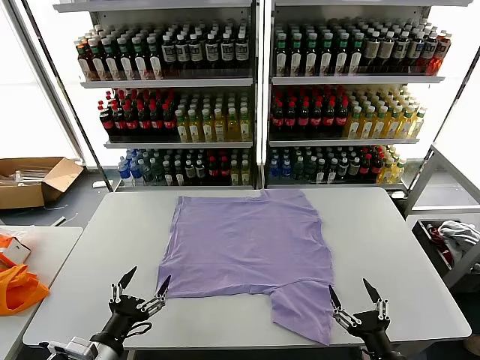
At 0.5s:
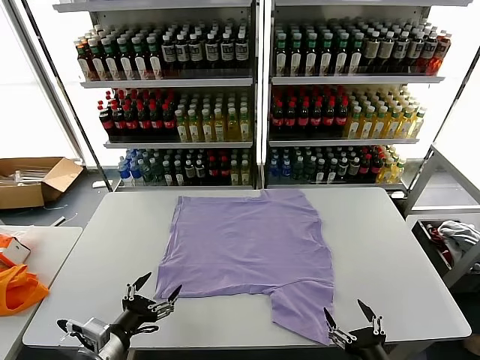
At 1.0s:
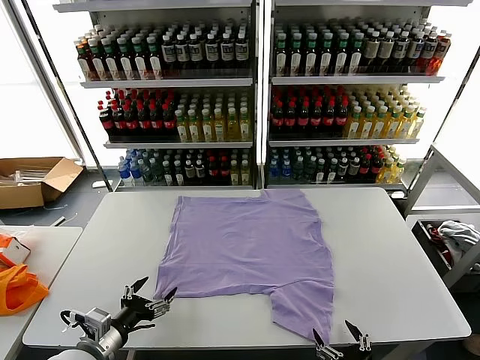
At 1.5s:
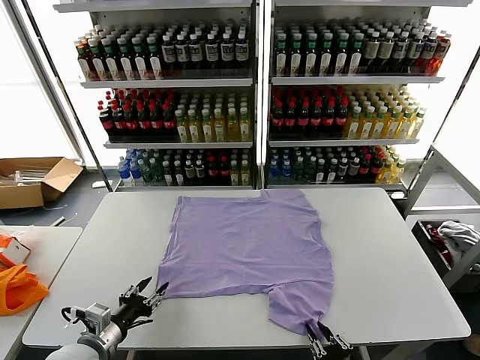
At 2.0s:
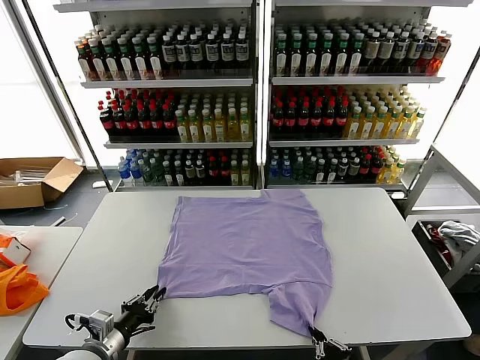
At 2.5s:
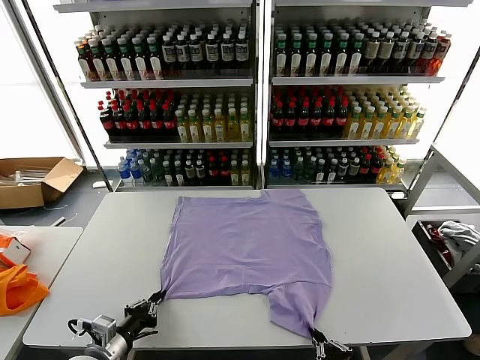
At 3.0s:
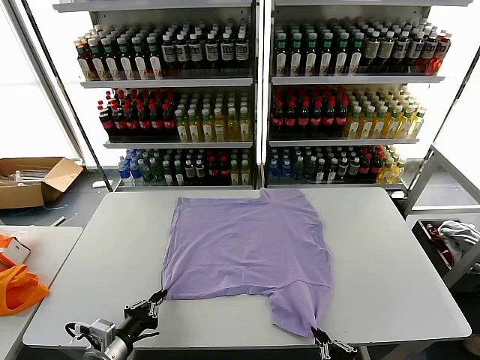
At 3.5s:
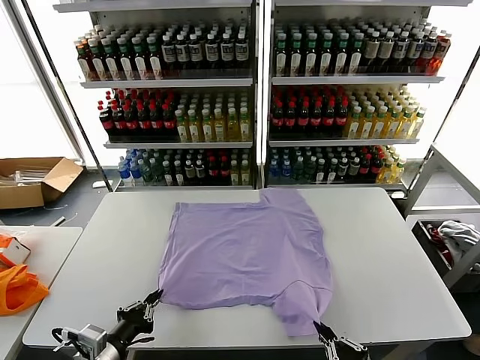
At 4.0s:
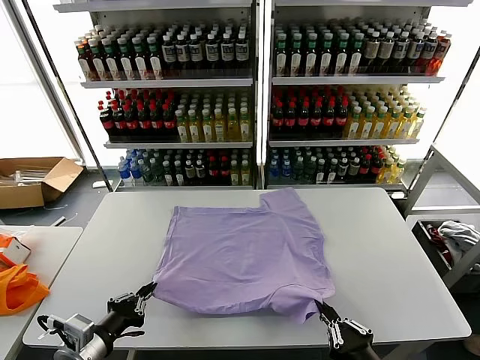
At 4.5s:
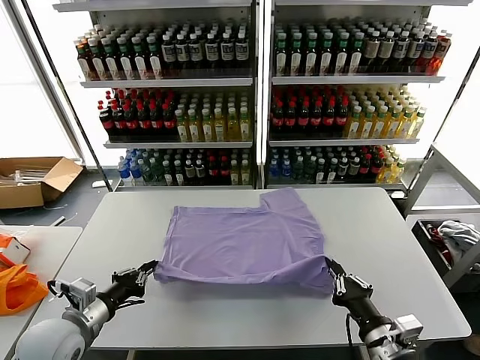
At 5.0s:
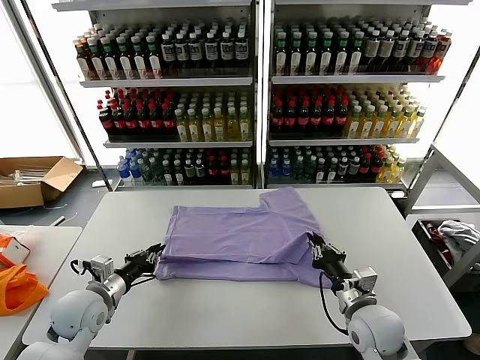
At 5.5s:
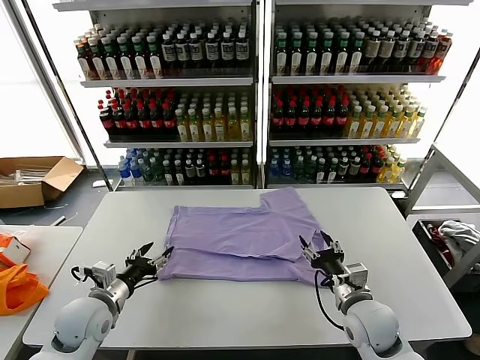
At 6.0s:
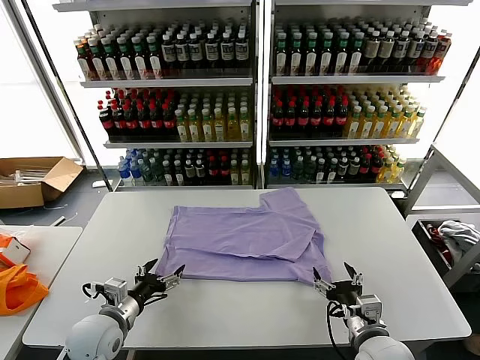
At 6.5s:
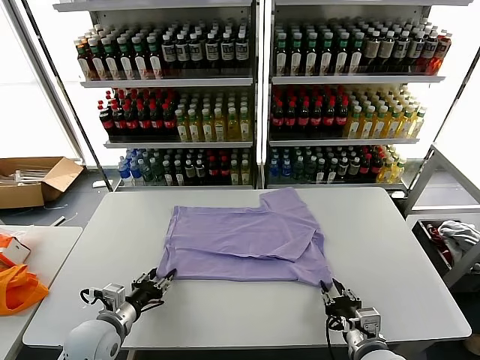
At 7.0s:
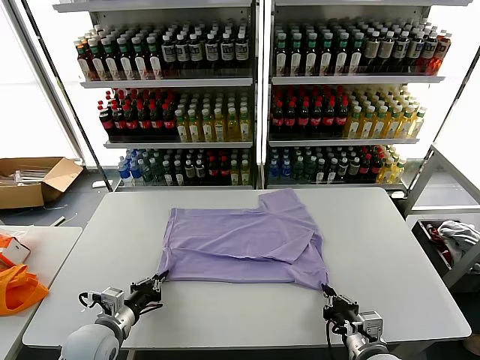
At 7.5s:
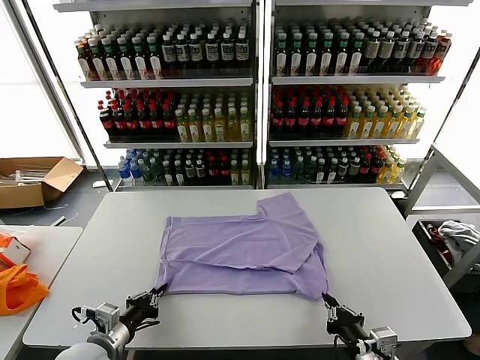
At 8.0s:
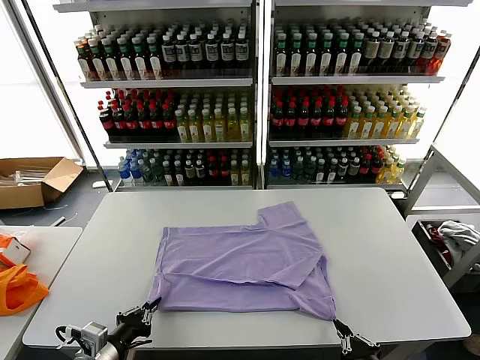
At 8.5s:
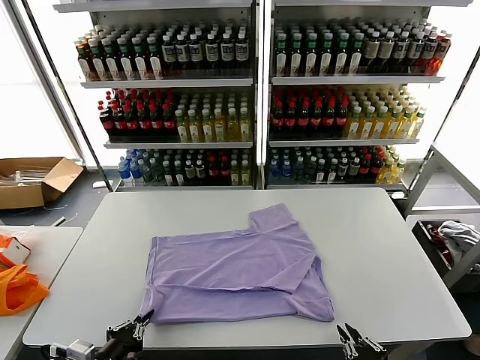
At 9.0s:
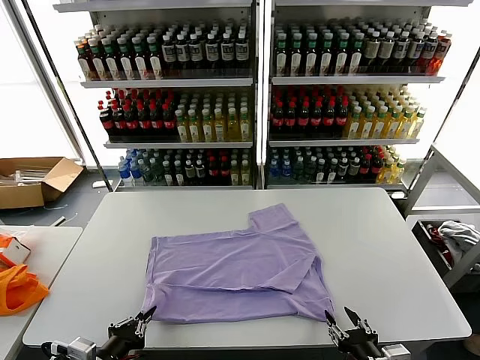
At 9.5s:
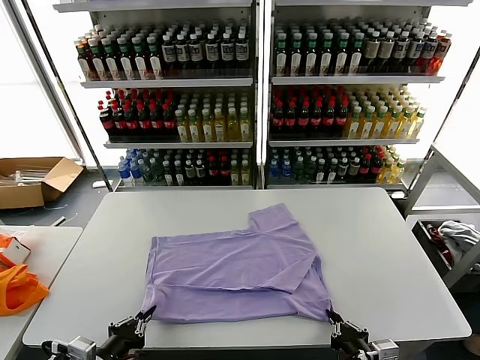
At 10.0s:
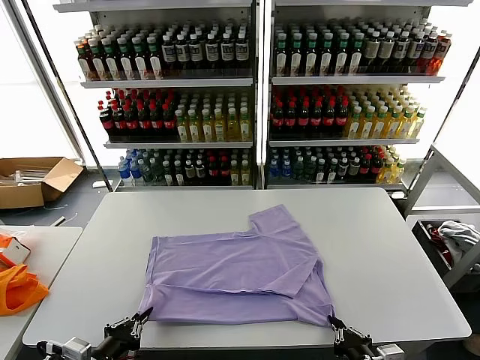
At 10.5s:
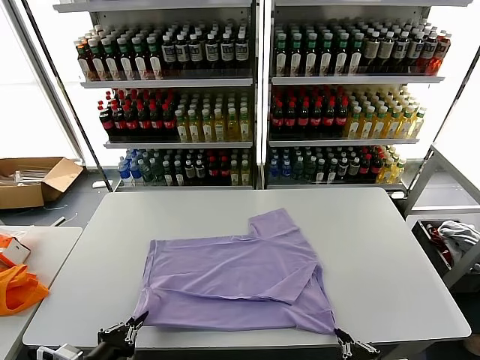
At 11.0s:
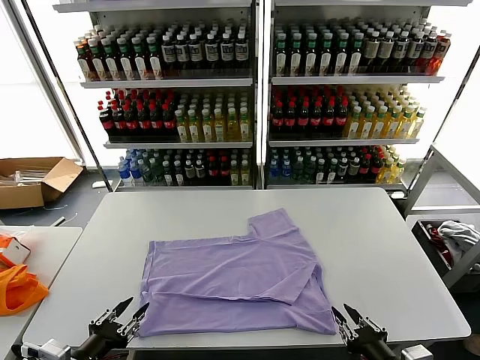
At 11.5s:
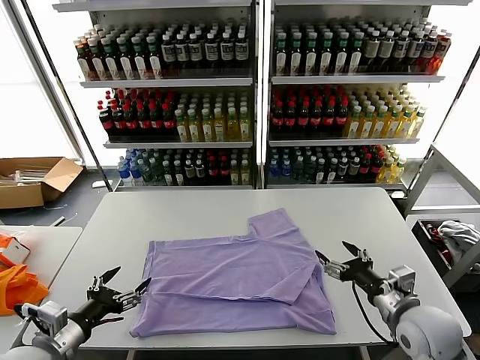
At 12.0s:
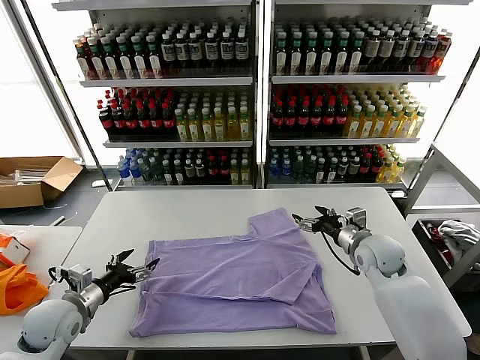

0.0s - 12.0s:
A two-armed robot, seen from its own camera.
Task of the whole recording: fold and organize the clothes.
Step, 0.0s - 2.5s: use both grippers simultaneously to clamp the lower edge of the clothing fabric.
Step, 3.0s - 5.0s: use both grippers to drag the lower edge of the fabric forward and fold it over the upper edge.
Step, 6.0s - 11.0s: Drag the clothes downward with both gripper.
2.0s - 4.0s: The two grippers go approximately 10 cm upward.
4.0s - 6.0s: Both grippers move forward and downward, about 15 cm. The right gripper opens up, while the left gripper opens.
6.0s - 8.0s: The grippers both shift backward by about 10 cm. The left gripper closes up, while the right gripper closes.
8.0s - 10.0s: The right gripper opens, then closes once more.
10.0s - 12.0s: The right gripper heads forward, covering approximately 35 cm, and opens, while the left gripper goes roughly 15 cm forward and to the left, and opens.

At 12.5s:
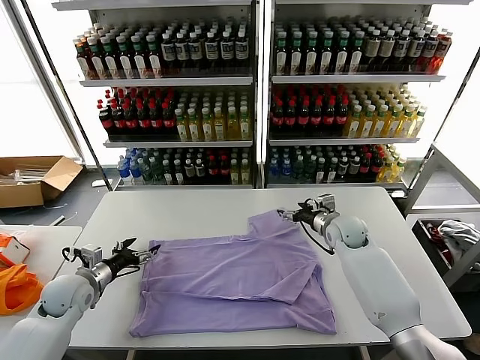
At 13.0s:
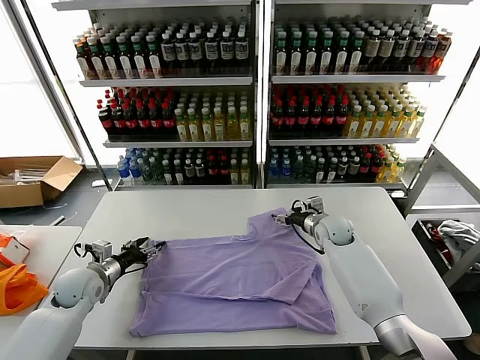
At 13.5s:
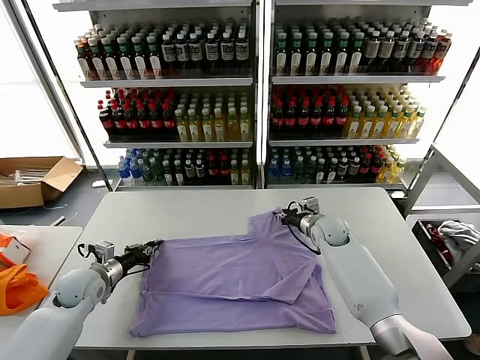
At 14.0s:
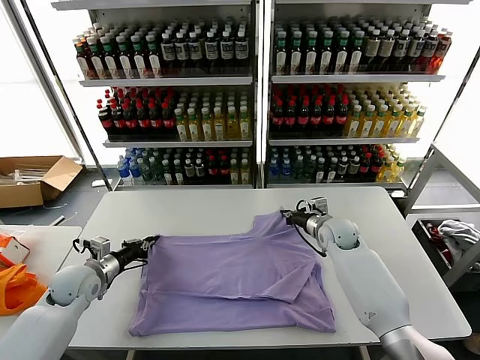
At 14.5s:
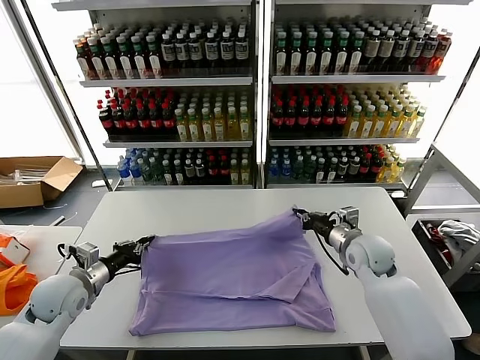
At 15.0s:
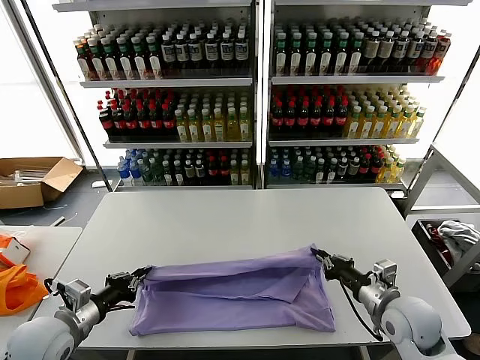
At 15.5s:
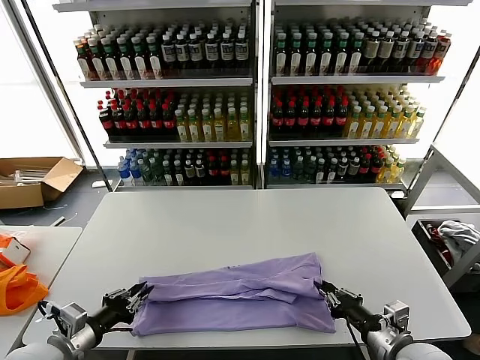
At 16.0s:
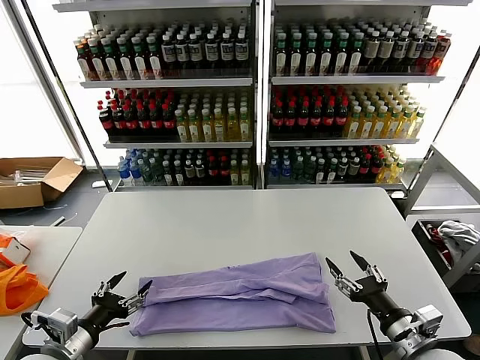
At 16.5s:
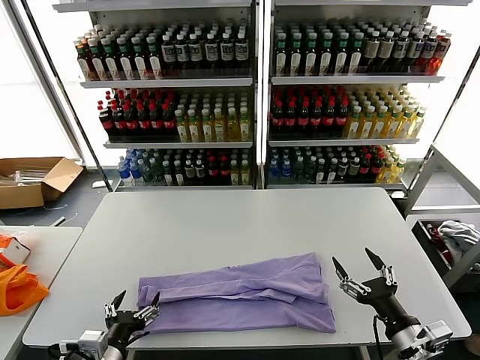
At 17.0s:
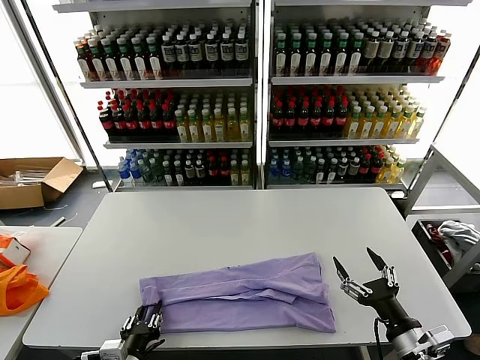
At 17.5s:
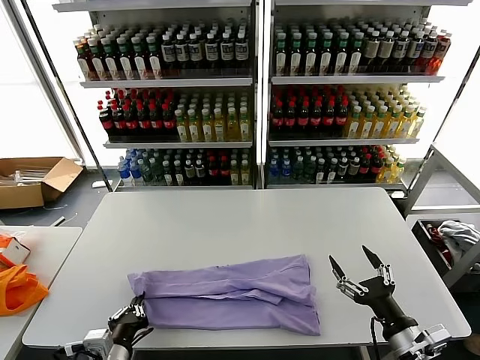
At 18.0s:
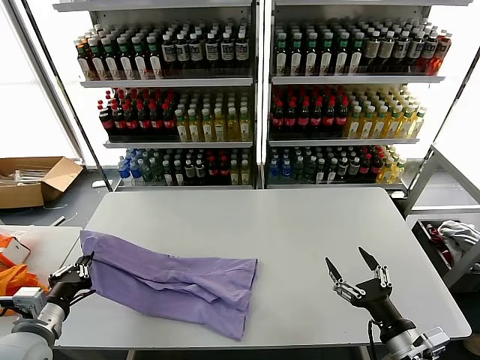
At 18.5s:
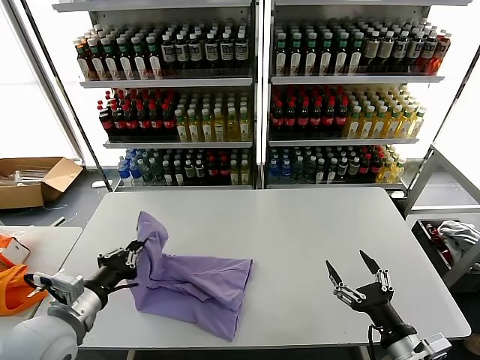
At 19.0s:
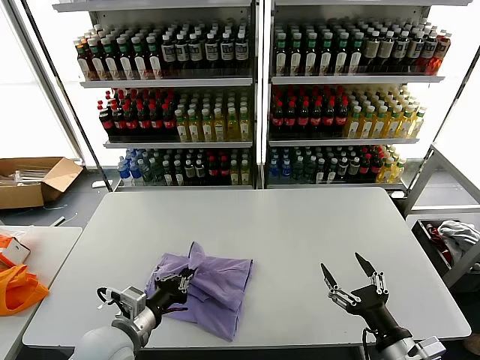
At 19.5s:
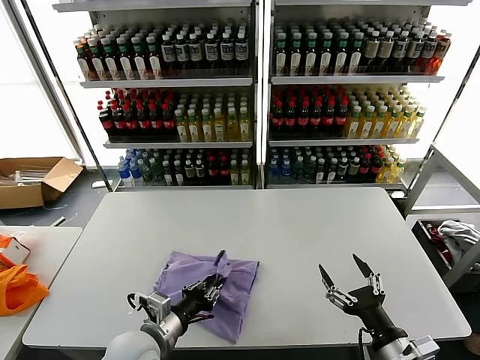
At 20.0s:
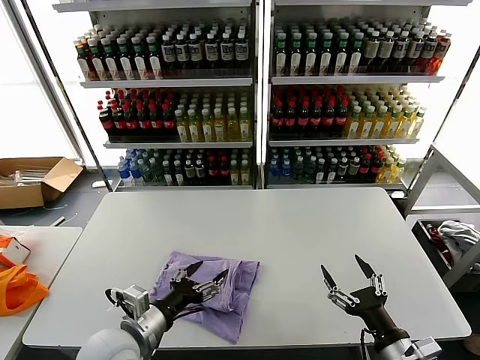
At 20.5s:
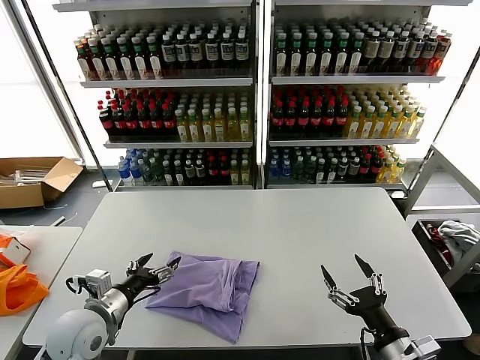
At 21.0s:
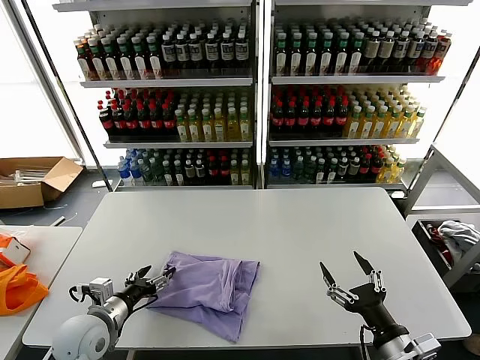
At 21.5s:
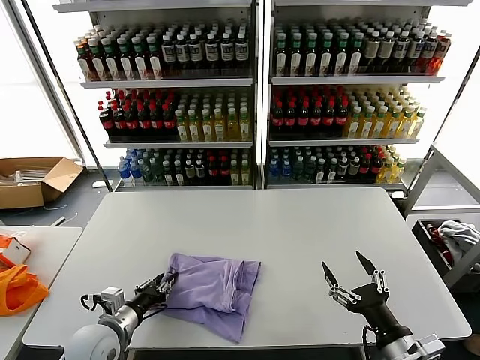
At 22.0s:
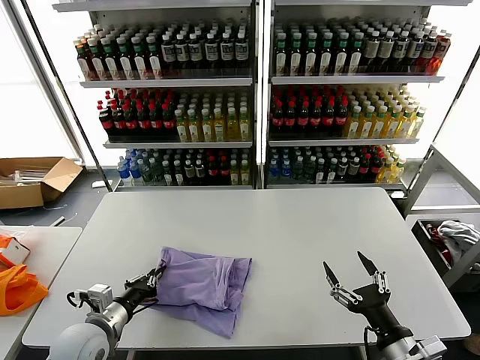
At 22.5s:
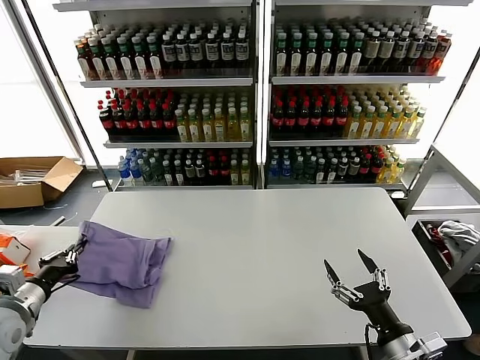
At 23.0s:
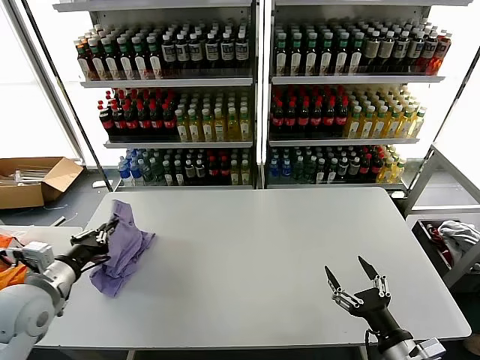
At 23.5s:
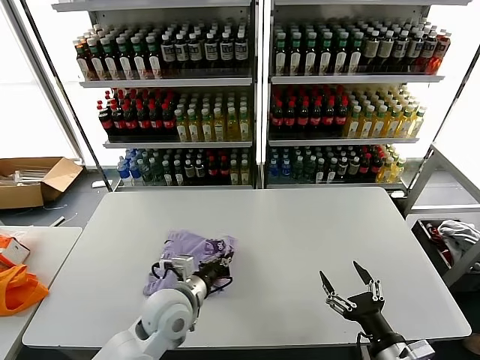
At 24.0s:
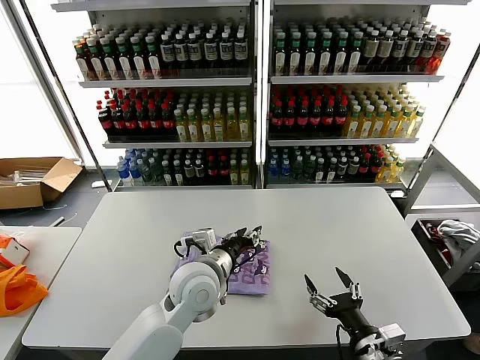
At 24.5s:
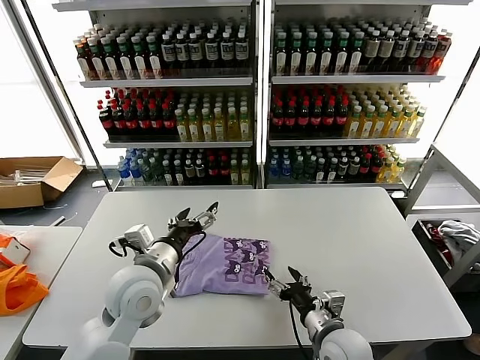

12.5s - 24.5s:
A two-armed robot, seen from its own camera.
Task of the whole recording: fold and organize the clothes.
Step, 14.0s - 15.5s: use both grippers to drag the upper edge of the fabric backward and fold it over the lower edge.
Step, 16.0s - 17.0s: use the left gripper to clamp the left edge of the fabric.
Step, 17.5s - 19.5s: use the left gripper to drag the left edge of the fabric to the left and folds it over the right edge.
Step, 20.0s - 23.5s: Flip the folded clothes over with left gripper.
12.5s - 14.5s: The right gripper goes some 10 cm backward, and closes up; the left gripper closes its fingers.
14.5s - 16.5s: The right gripper goes some 25 cm backward, and opens. Meanwhile the left gripper goes some 20 cm backward and to the right, and opens up.
16.5s - 18.5s: The left gripper heads upward and forward, covering about 10 cm, and closes up.
18.5s - 20.5s: The left gripper travels downward by roughly 5 cm, goes to the right and returns, some 10 cm each way, and opens.
20.5s - 22.5s: The left gripper is displaced to the left by approximately 15 cm, and closes its fingers.
22.5s - 24.5s: The right gripper moves to the left and forward, roughly 15 cm. Meanwhile the left gripper heads to the right, covering roughly 25 cm, and opens.

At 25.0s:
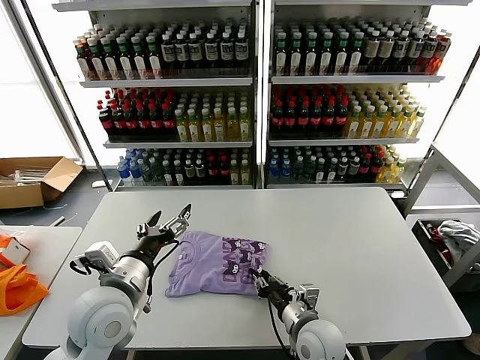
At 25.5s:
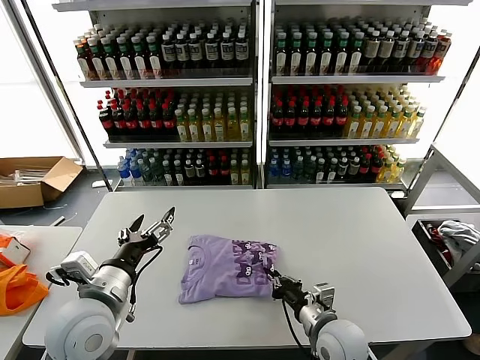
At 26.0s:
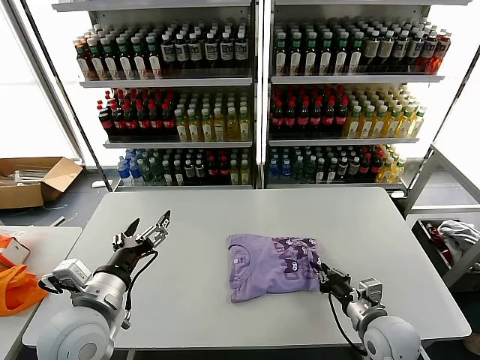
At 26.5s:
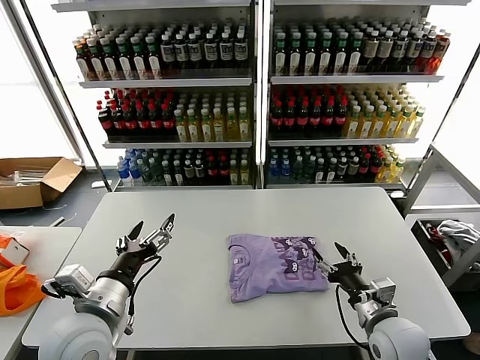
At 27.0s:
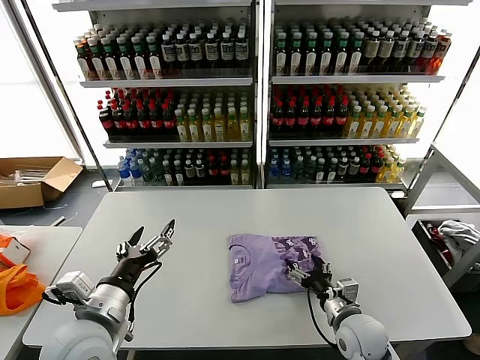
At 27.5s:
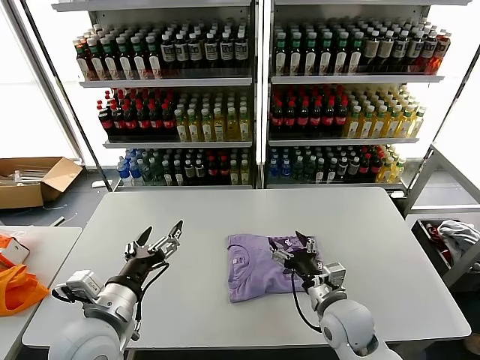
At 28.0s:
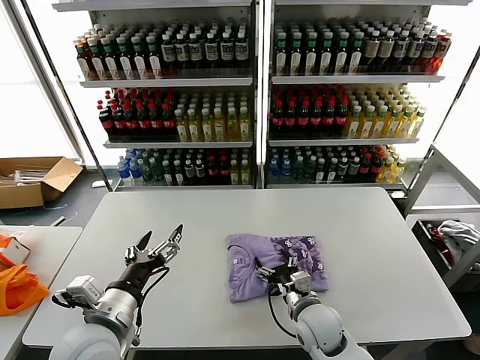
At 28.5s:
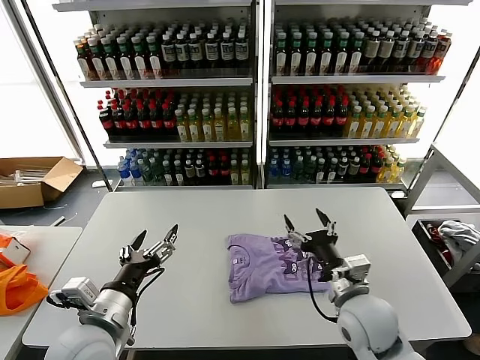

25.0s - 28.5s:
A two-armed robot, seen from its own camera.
Task of the whole recording: fold and organize the clothes.
Step, 25.0s - 28.0s: Drag the clothes to the center of the table.
25.0s - 27.0s: The right gripper travels to the right by roughly 10 cm, and opens its fingers. Meanwhile the left gripper heads backward, covering approximately 5 cm.
27.0s - 28.5s: The right gripper shifts some 10 cm upward.
